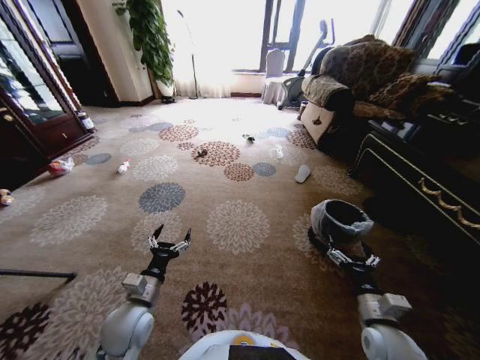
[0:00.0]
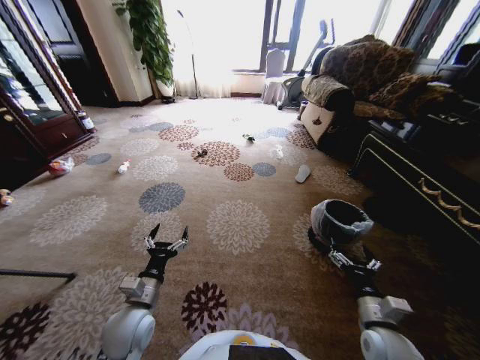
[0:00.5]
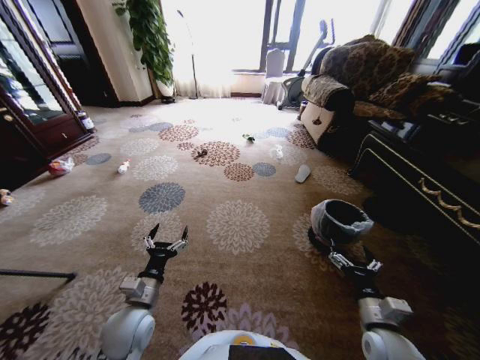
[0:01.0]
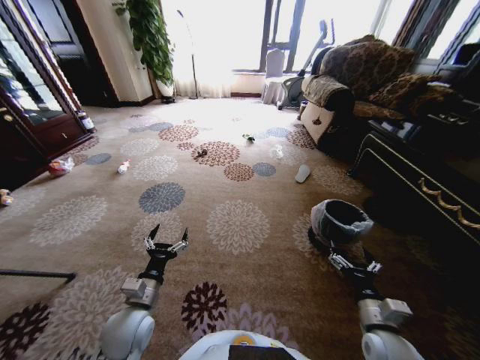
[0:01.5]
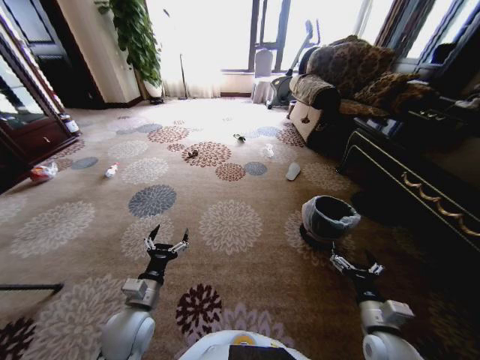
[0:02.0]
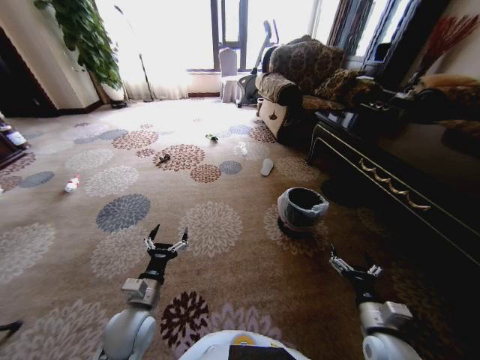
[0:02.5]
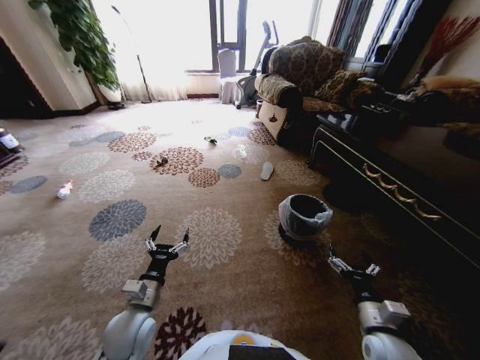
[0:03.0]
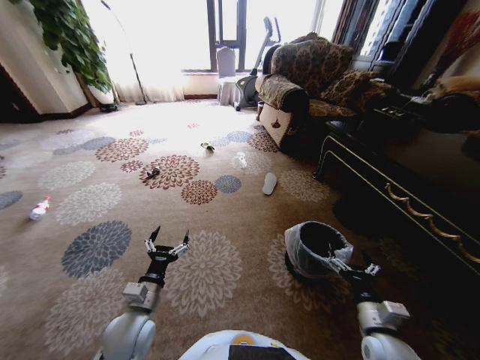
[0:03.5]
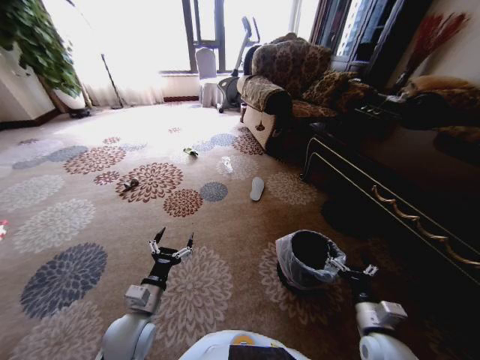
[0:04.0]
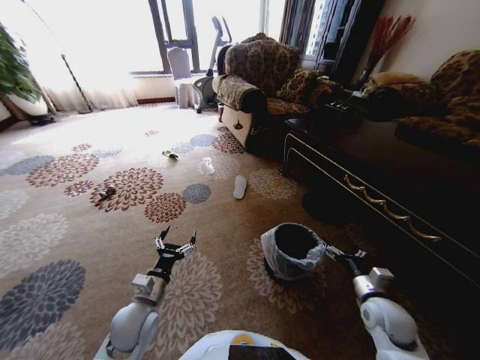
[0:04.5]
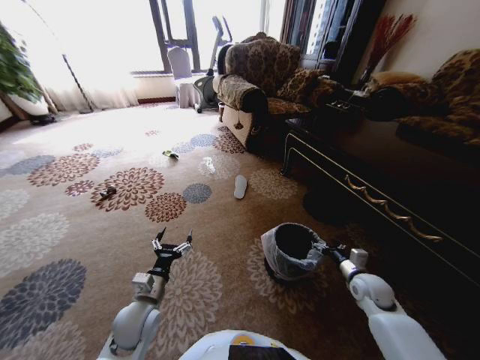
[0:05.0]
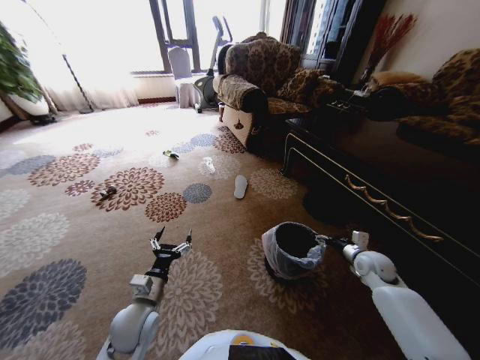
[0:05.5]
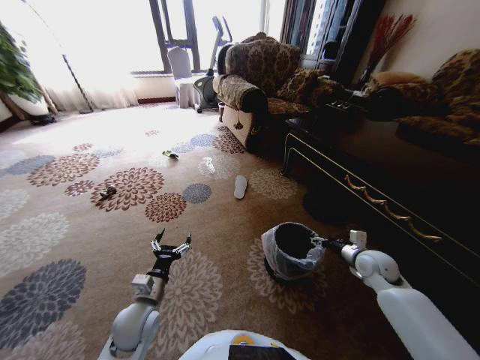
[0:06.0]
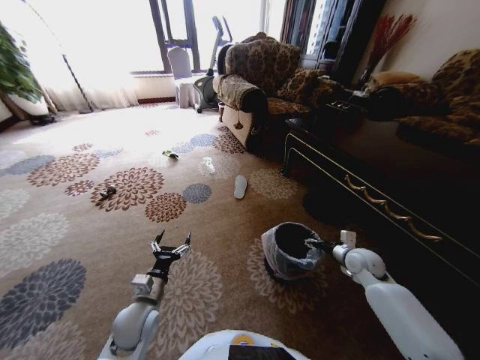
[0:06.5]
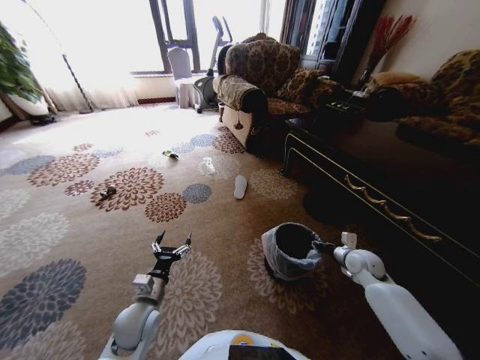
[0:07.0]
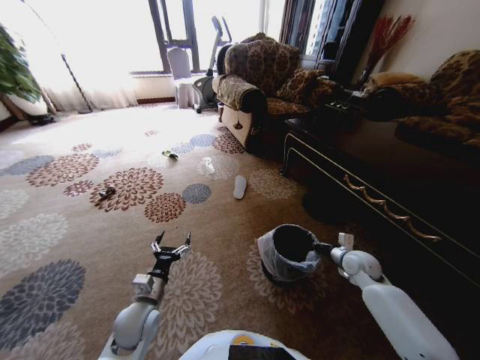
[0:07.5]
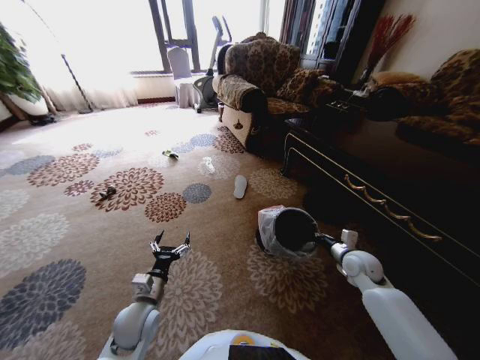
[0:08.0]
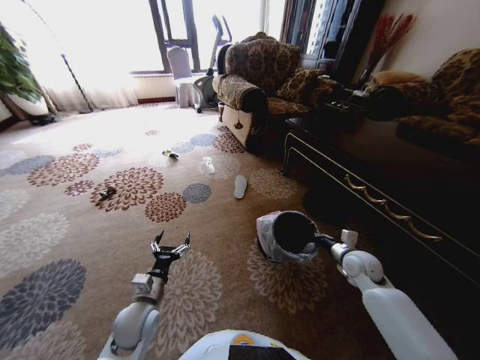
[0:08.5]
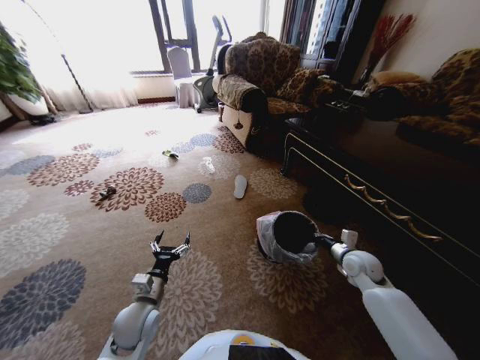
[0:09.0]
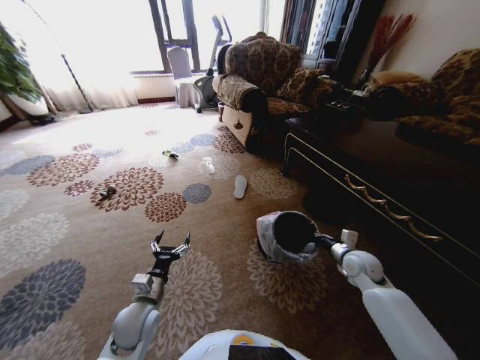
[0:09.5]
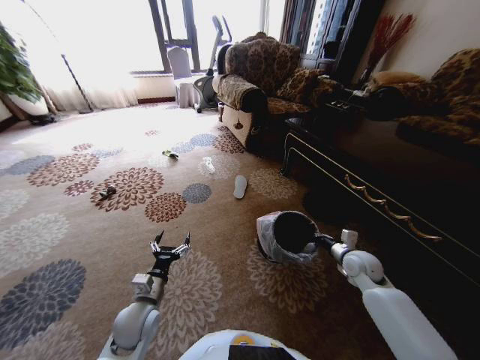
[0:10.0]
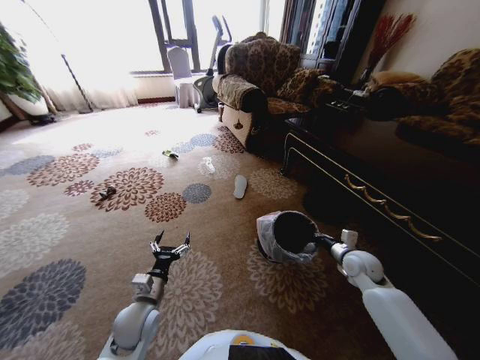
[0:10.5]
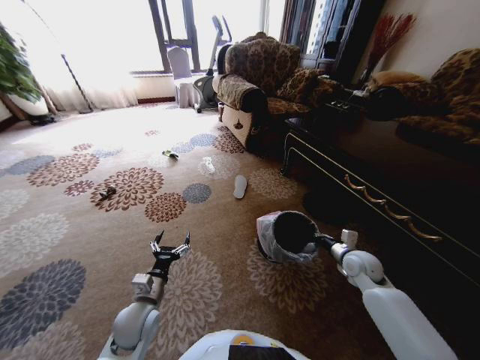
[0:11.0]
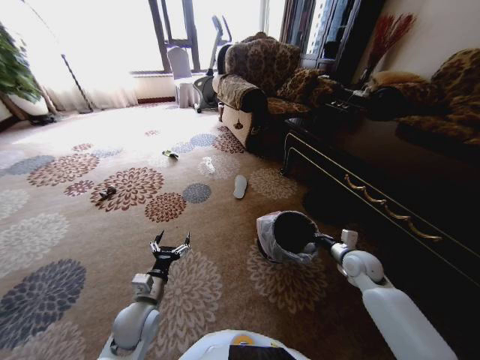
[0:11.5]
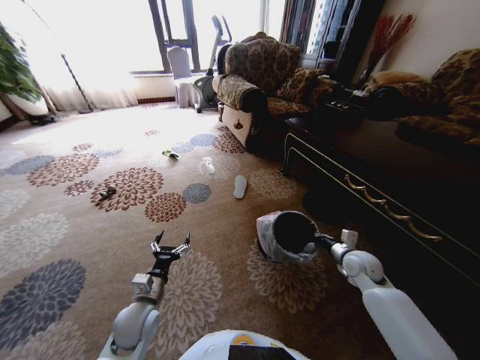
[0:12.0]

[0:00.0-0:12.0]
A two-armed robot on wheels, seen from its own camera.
Task of the whole recording: Pick up the trash from the ground and place it into the trash bin.
0:04.0 to 0:06.0: The right gripper travels forward and to the right by some 20 cm.
0:06.0 to 0:08.0: The right gripper closes up.
0:08.0 to 0:12.0: The two grippers keep their place.

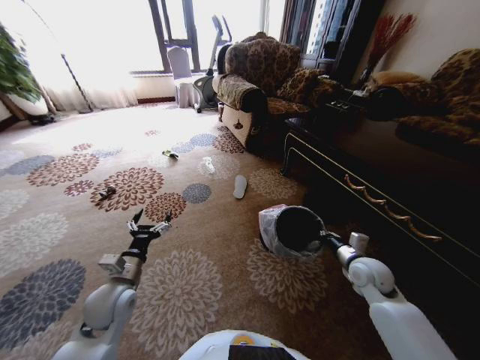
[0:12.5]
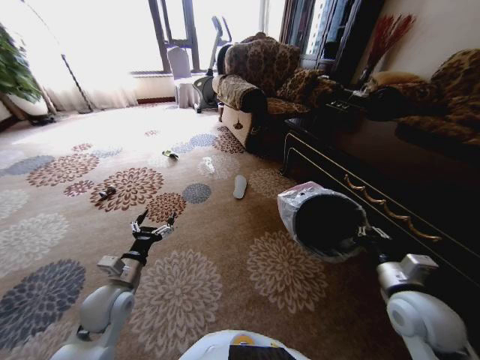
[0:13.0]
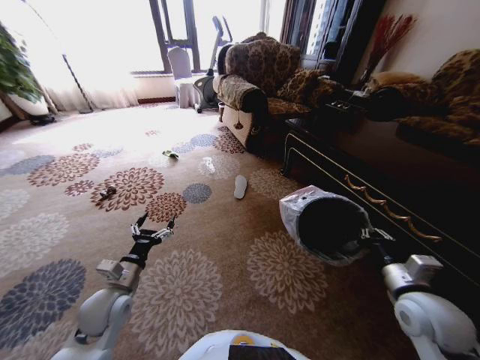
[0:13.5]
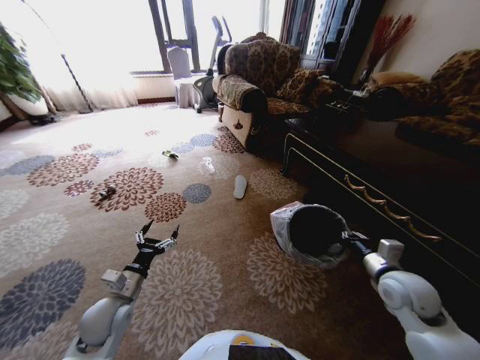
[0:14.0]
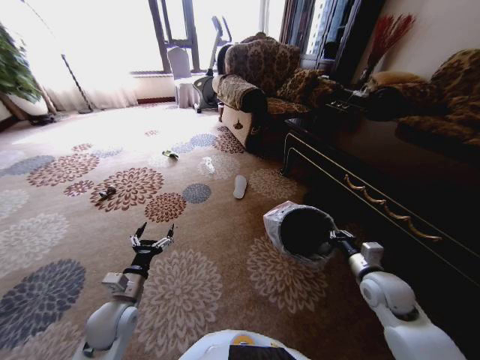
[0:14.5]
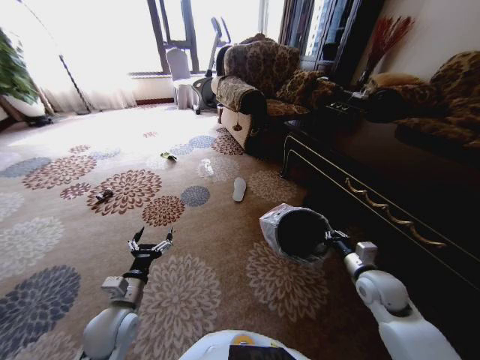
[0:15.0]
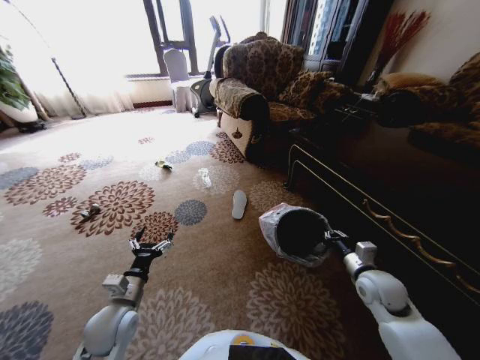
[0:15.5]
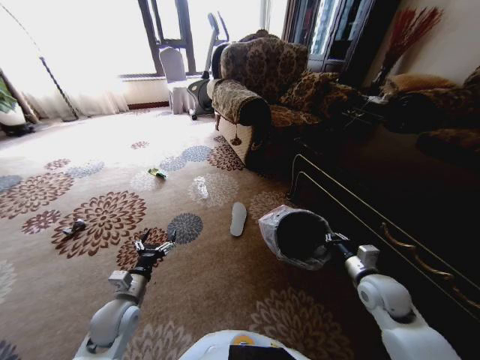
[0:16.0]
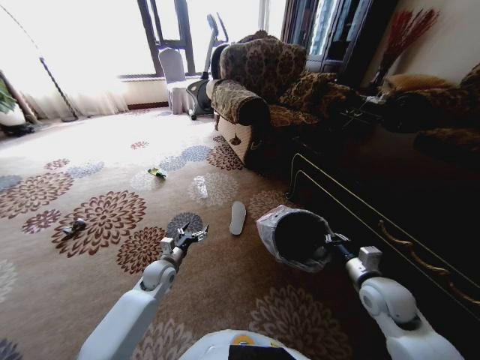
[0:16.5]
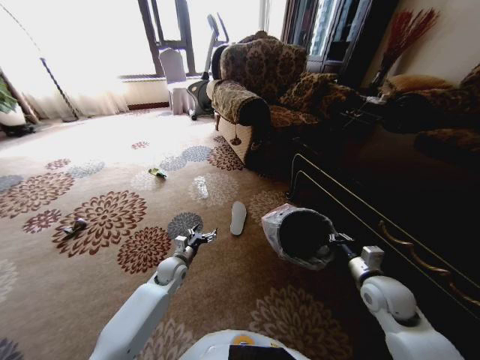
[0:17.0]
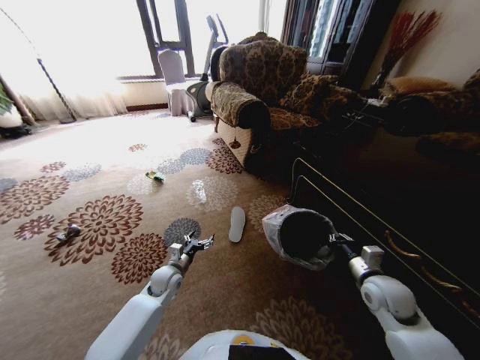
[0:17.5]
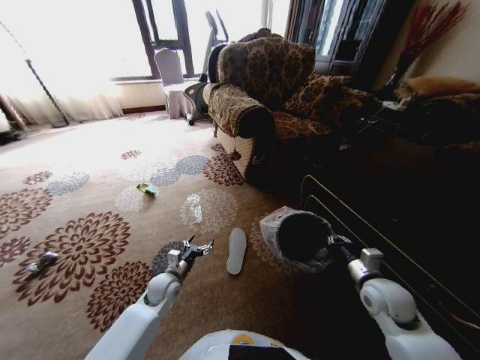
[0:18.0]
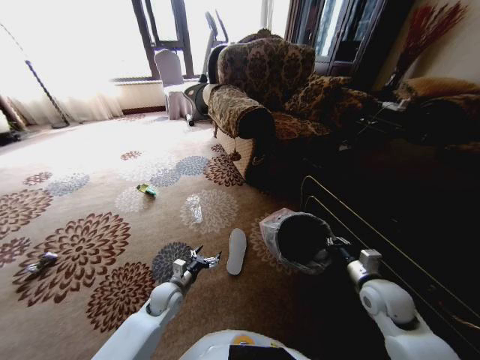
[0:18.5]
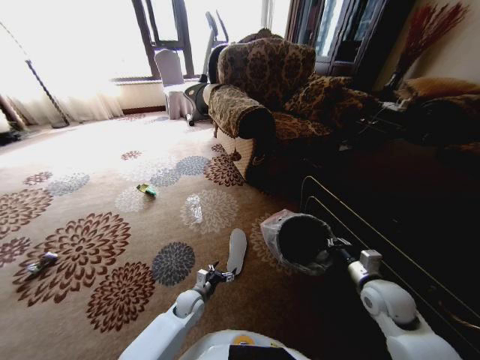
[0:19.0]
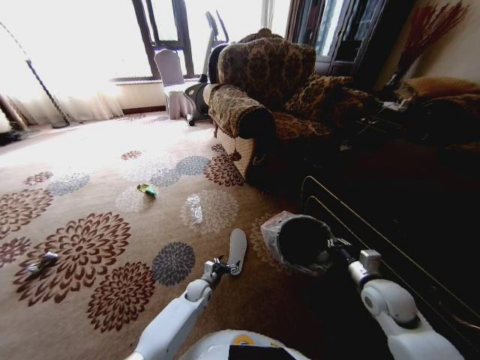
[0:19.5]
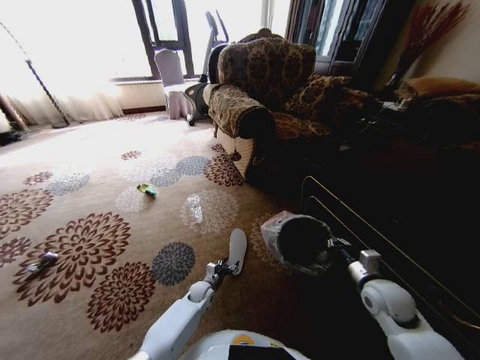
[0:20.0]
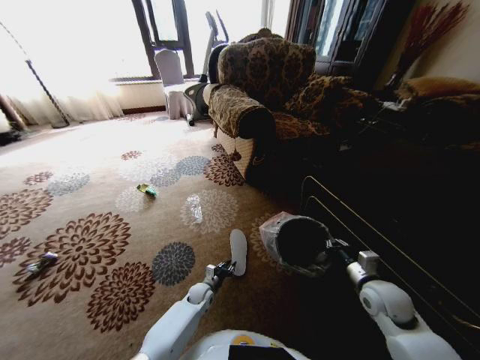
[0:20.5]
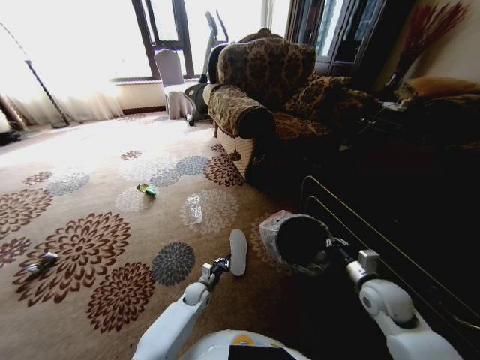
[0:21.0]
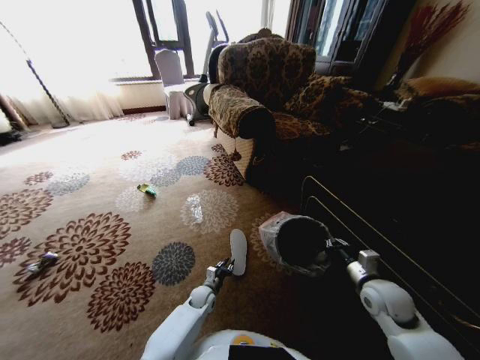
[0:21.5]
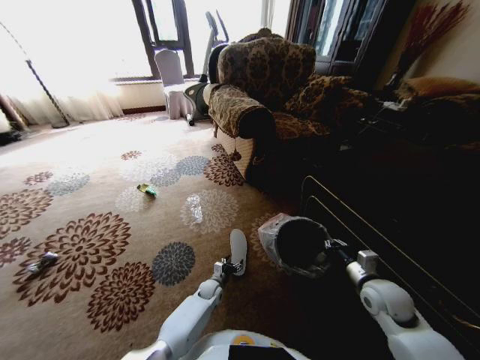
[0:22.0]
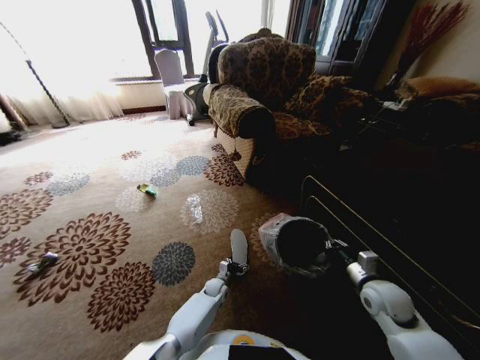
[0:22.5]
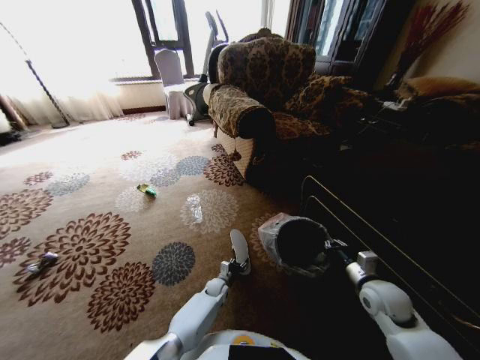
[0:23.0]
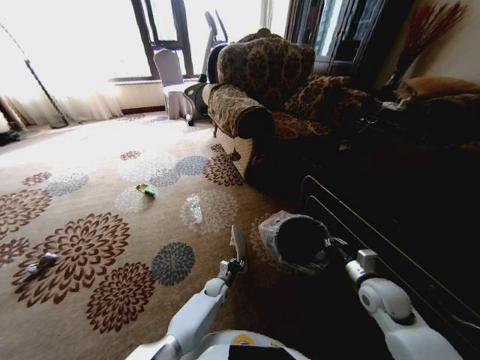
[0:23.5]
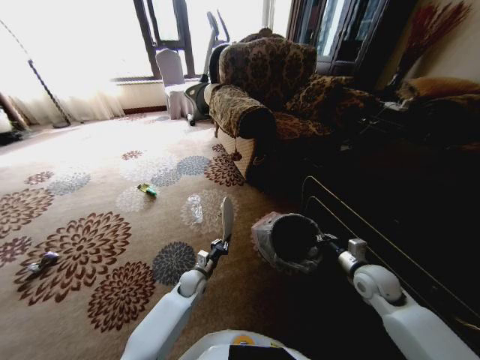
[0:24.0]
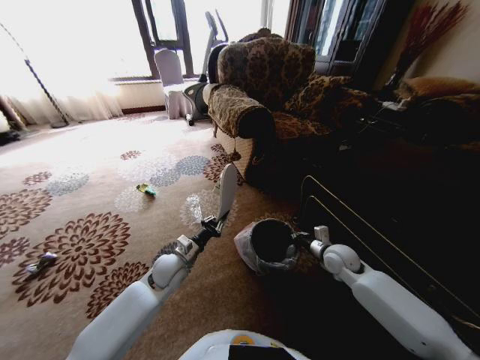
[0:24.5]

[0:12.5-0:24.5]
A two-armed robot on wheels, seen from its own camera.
Task of the whole recording: Pick up the trash from the ground and place it into the trash bin.
0:12.5 to 0:14.5: The left gripper changes place by about 5 cm.
0:14.5 to 0:16.5: The left gripper shifts roughly 15 cm forward and downward.
0:16.5 to 0:18.5: The left gripper shifts roughly 5 cm backward.
0:18.5 to 0:20.5: The left gripper heads downward and to the right, covering roughly 15 cm, and closes its fingers.
0:20.5 to 0:22.5: The left gripper travels to the right by about 5 cm, and opens.
0:22.5 to 0:24.5: The left gripper heads upward and to the left, covering approximately 30 cm, and closes up. Meanwhile the right gripper goes roughly 10 cm forward and to the left.

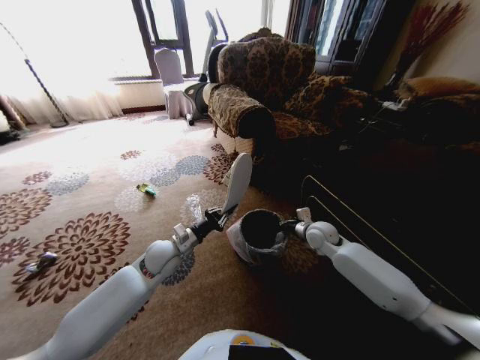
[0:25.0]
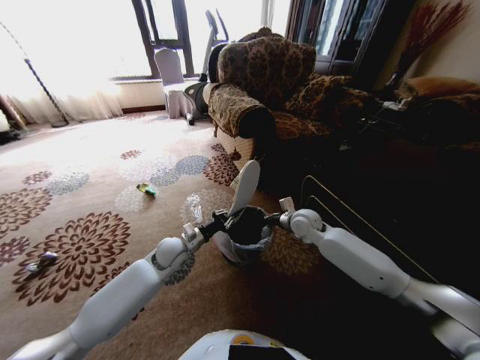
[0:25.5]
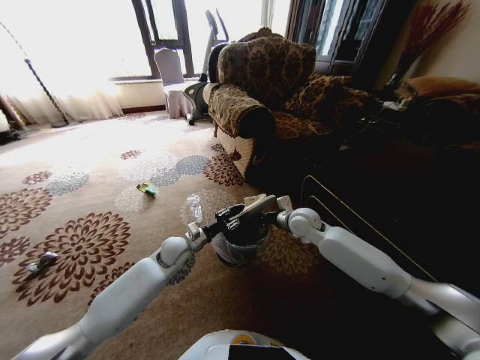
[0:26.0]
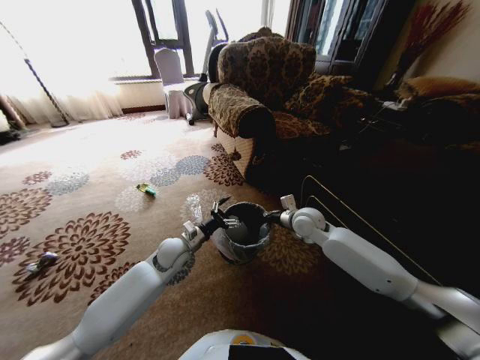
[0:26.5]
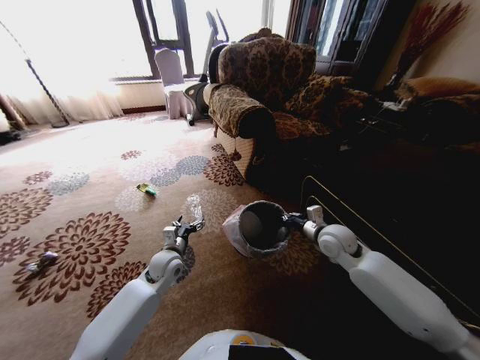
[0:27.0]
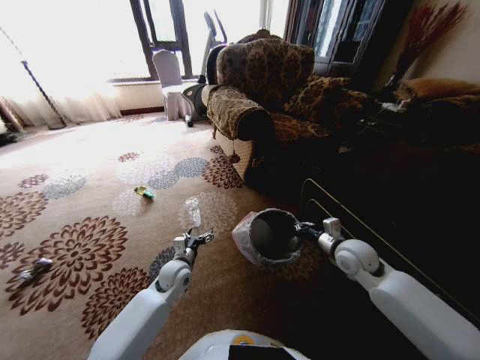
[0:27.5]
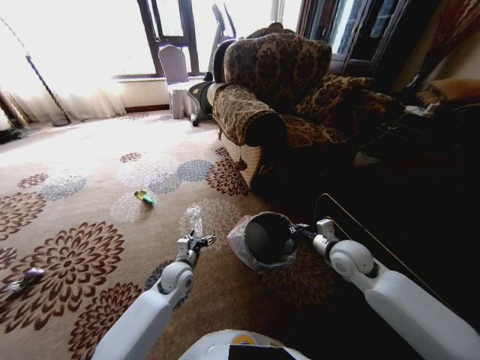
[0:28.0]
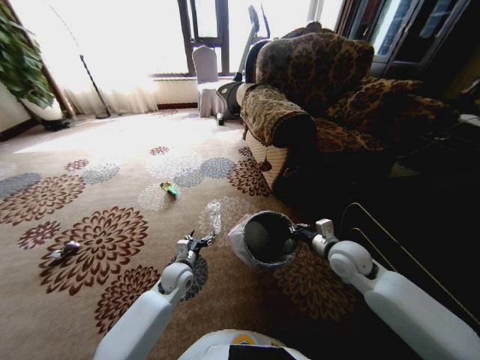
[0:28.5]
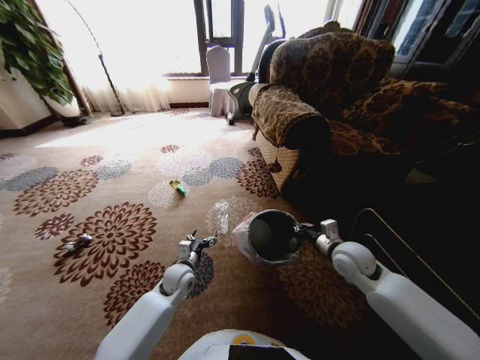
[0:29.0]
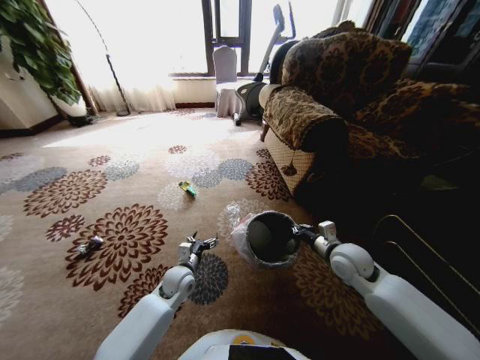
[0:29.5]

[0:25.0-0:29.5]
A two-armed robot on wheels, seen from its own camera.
Task of the whole recording: Pick up the trash from the ground and place it into the trash bin.
0:25.0 to 0:27.0: The left gripper opens up. The right gripper is displaced upward by about 5 cm.
0:27.0 to 0:29.5: The right gripper goes some 5 cm backward, while the left gripper is displaced downward by roughly 5 cm.
